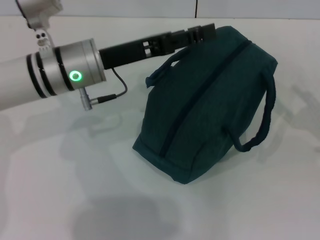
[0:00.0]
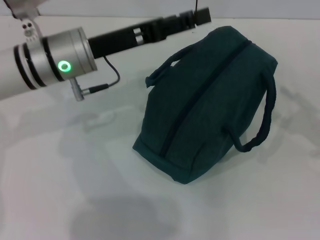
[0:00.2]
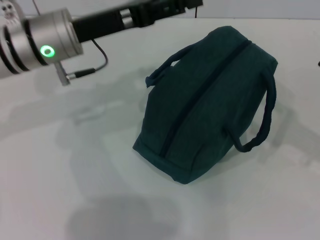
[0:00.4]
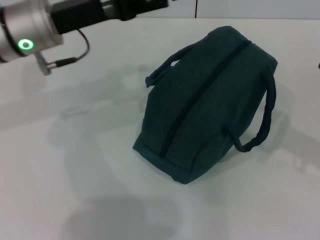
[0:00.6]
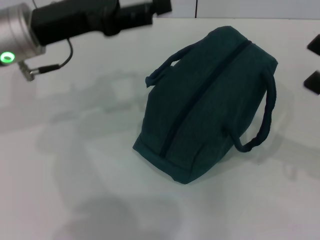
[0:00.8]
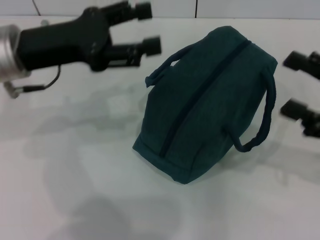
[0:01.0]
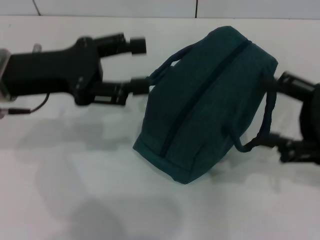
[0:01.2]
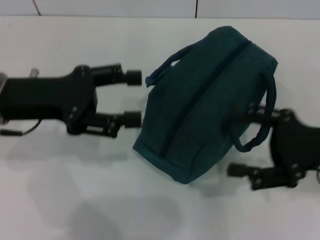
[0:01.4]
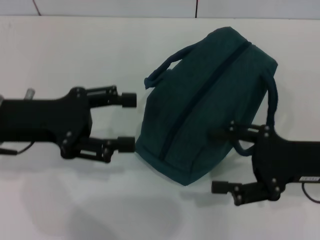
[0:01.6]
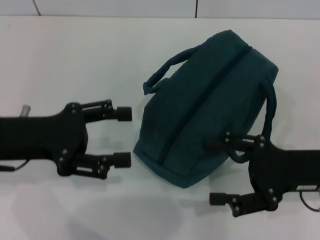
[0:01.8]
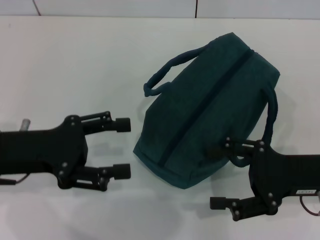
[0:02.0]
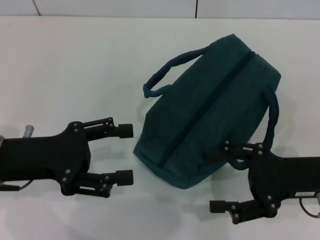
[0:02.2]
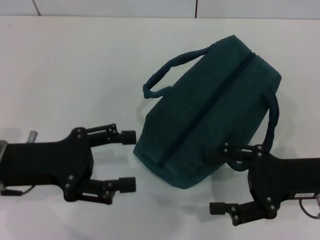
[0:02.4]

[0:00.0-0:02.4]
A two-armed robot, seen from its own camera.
0:00.0 to 0:01.2: The left gripper is displaced to the left by about 10 cm, and opens its fingers; the right gripper goes about 10 cm to the left and upward.
0:01.2 to 0:02.4: The left gripper moves backward and downward, roughly 10 cm, while the right gripper ends up approximately 5 cm from where it was.
